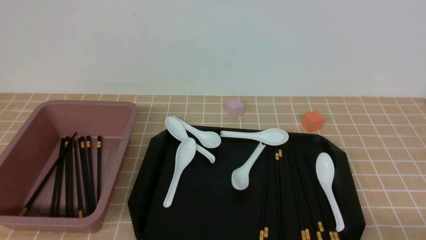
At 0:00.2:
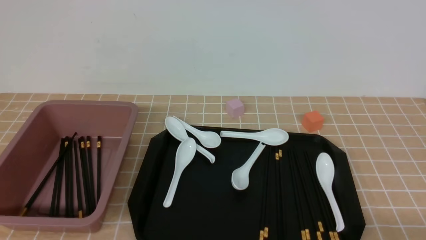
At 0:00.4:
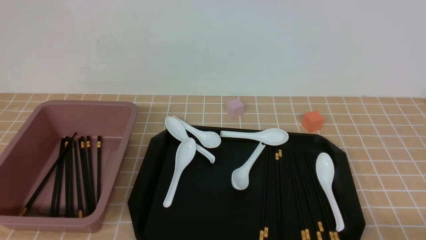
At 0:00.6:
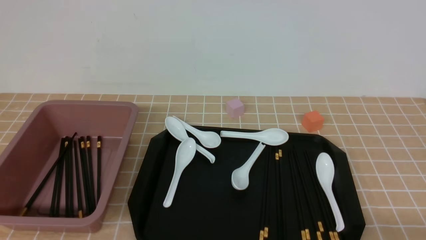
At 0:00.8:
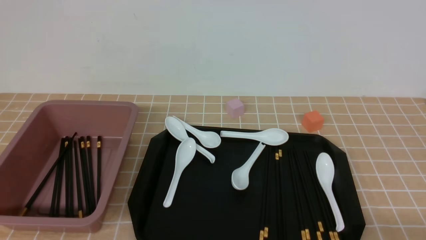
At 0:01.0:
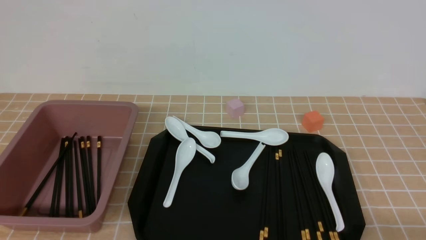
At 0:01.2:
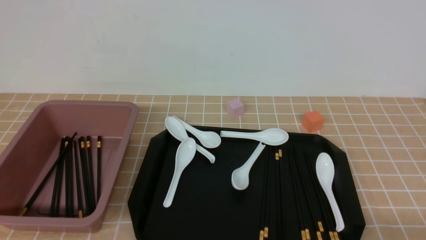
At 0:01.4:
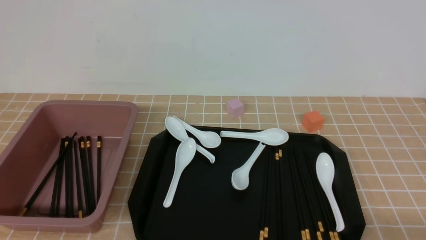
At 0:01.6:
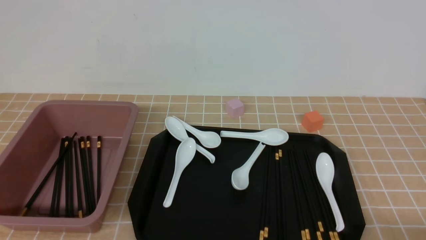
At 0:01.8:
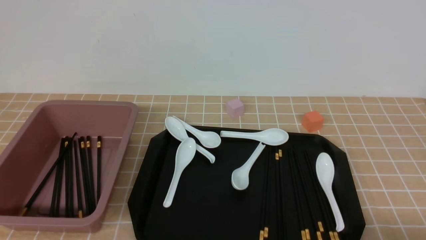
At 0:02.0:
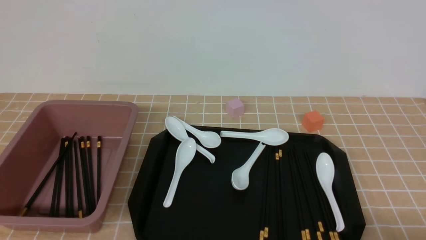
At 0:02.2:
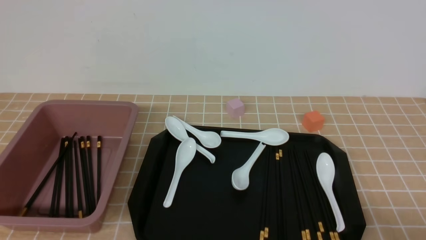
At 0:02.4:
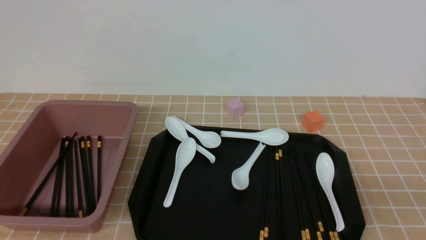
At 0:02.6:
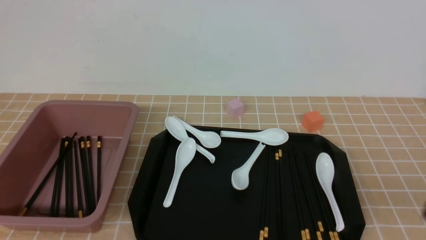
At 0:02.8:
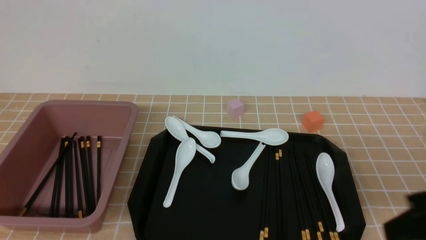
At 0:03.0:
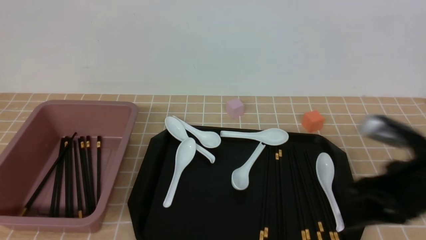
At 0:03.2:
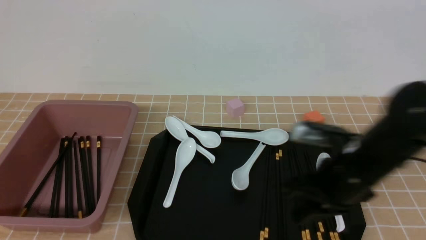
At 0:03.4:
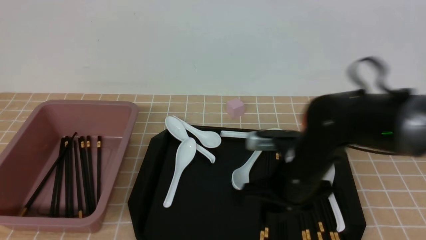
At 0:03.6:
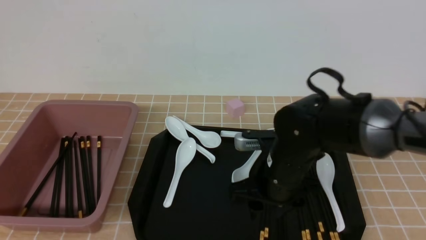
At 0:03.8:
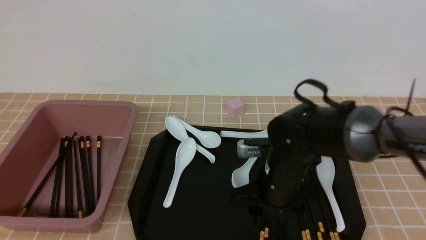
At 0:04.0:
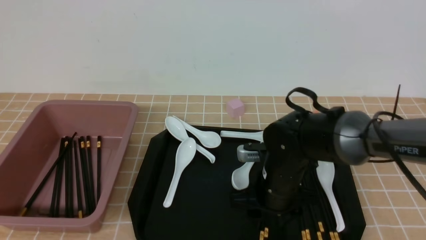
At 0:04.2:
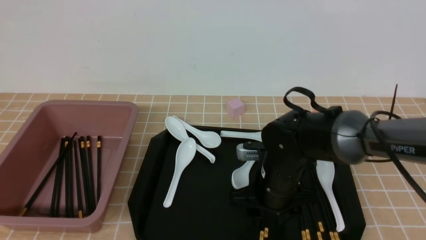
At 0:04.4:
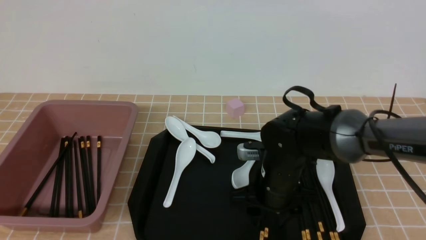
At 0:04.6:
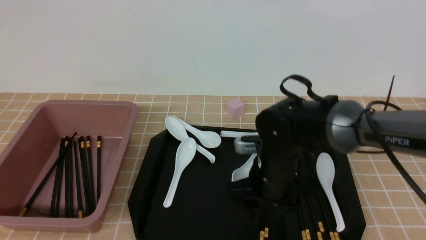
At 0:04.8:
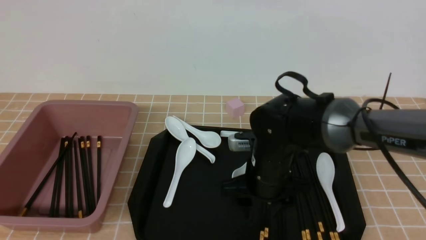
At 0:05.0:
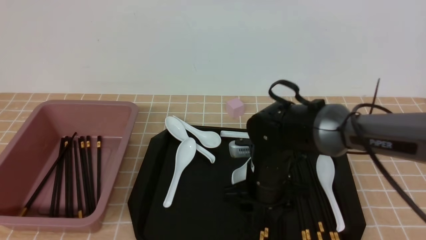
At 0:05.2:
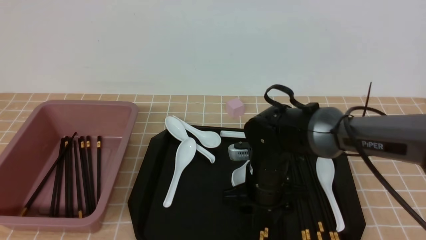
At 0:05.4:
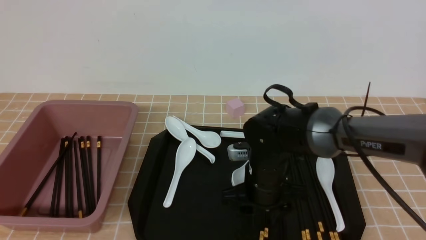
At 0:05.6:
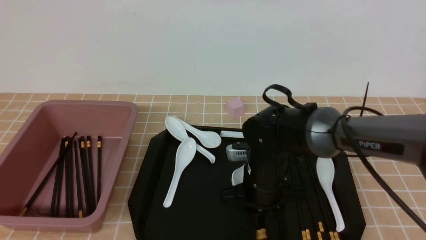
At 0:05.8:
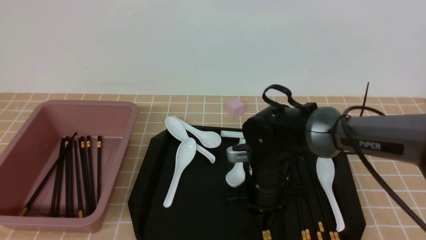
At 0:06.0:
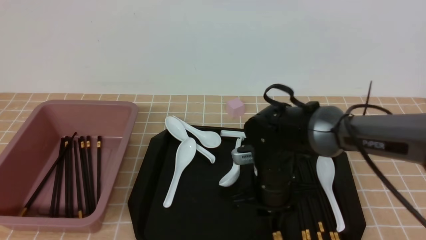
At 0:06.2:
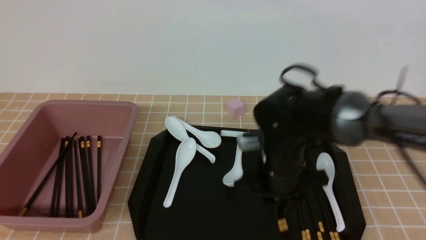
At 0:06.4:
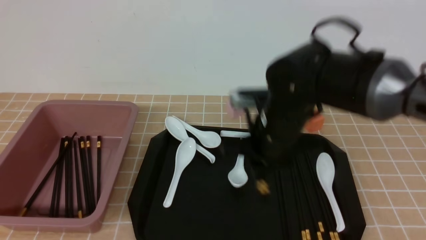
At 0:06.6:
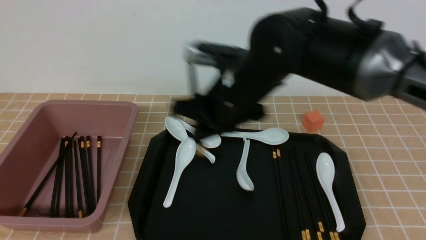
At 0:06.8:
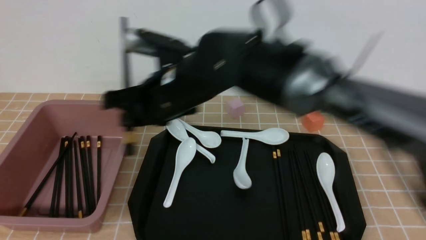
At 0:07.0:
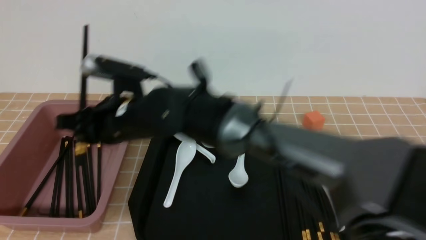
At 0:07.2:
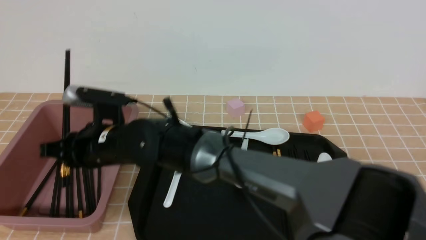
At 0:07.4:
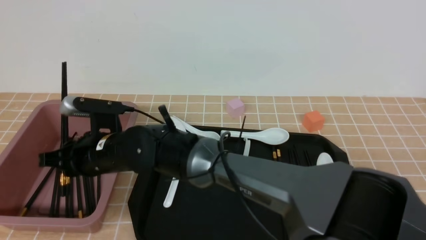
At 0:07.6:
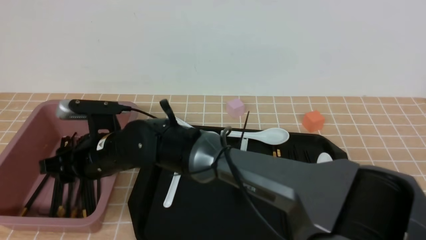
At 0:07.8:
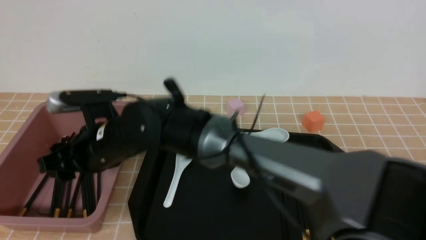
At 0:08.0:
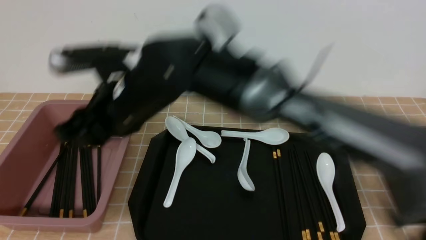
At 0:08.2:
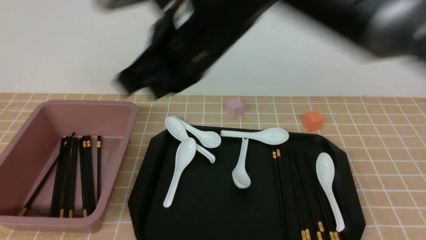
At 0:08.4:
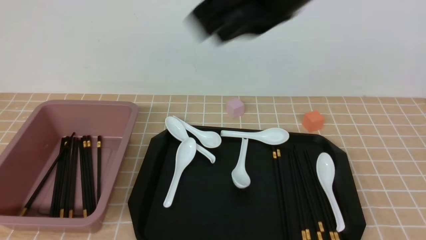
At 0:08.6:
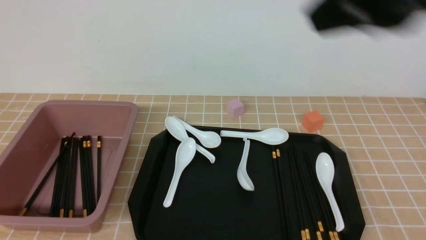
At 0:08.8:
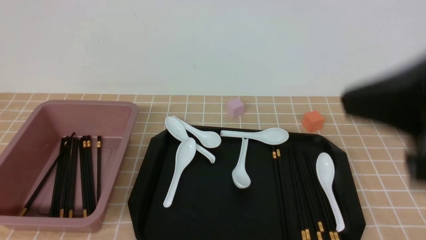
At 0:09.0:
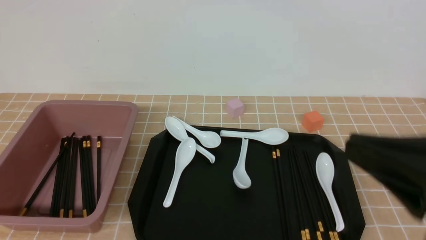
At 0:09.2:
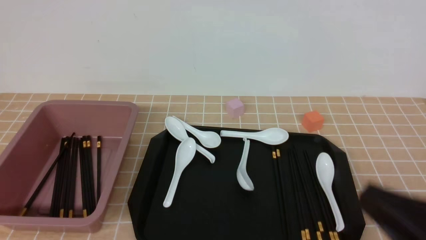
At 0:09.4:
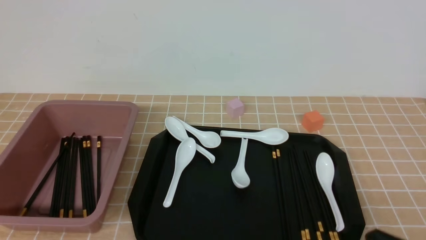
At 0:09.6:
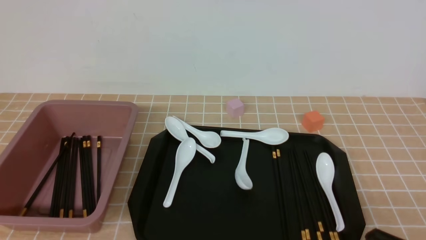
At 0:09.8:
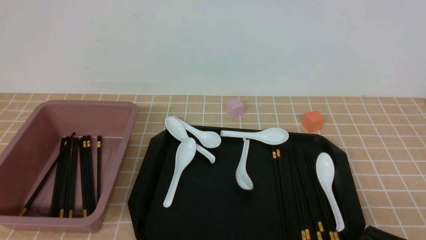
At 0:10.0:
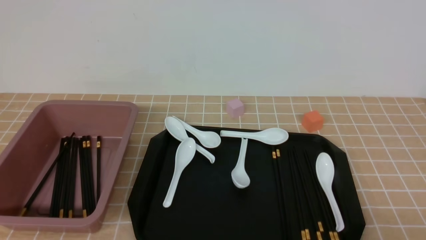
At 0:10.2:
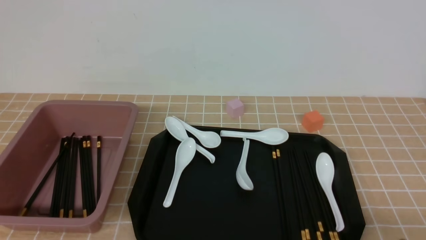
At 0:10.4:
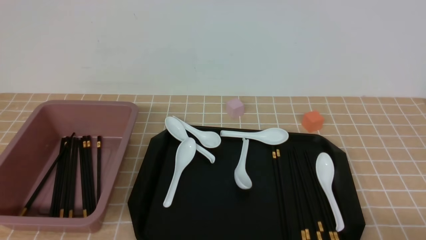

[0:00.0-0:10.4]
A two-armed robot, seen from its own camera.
Step, 0:00.0 to 0:06.0: use the right arm to grab a pair of chopsticks.
Step, 0:06.2 to 0:08.0: use the right arm to put the chopsticks into the lunch box.
0:01.4 to 0:03.0: The right gripper goes about 20 cm forward, upward and to the left, and closes its fingers.
0:03.0 to 0:04.4: The right gripper is displaced to the left, downward and forward by about 20 cm, and opens.
0:04.4 to 0:06.0: The right gripper closes.
0:06.0 to 0:07.4: The right gripper shifts about 25 cm to the left.
0:07.4 to 0:09.0: The right gripper goes some 50 cm to the right, backward and upward, and closes up.
0:09.0 to 0:10.4: The right gripper is displaced downward and to the right by approximately 20 cm.

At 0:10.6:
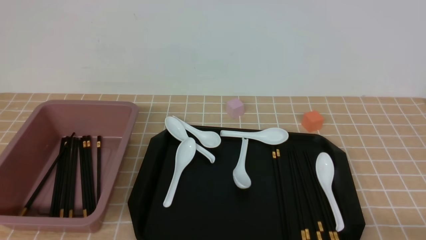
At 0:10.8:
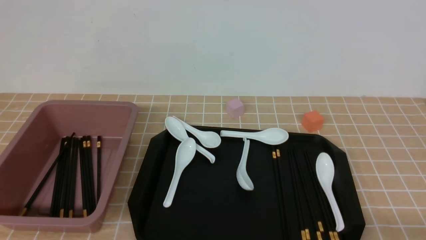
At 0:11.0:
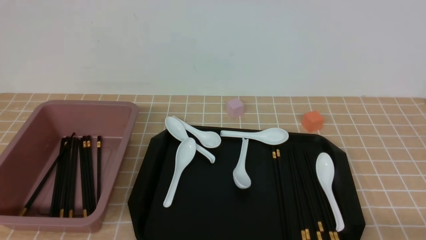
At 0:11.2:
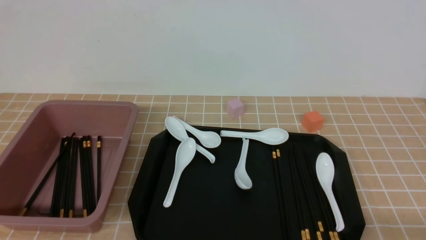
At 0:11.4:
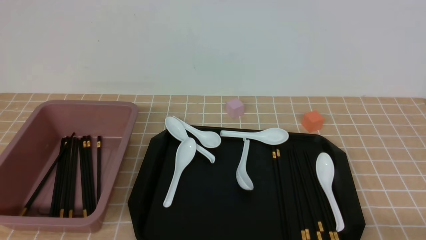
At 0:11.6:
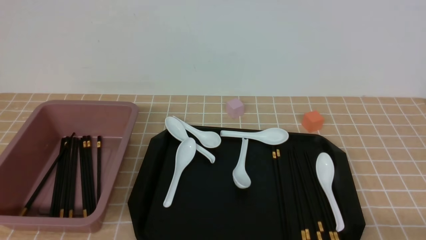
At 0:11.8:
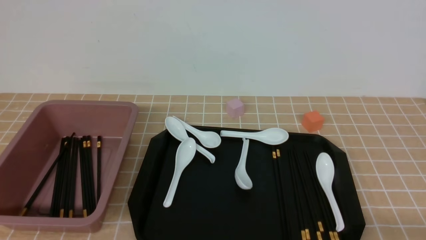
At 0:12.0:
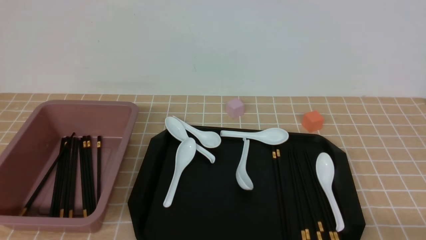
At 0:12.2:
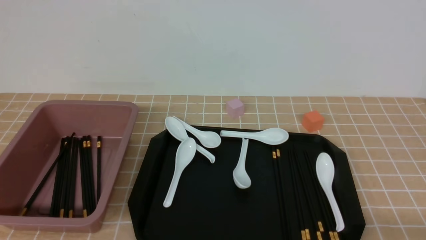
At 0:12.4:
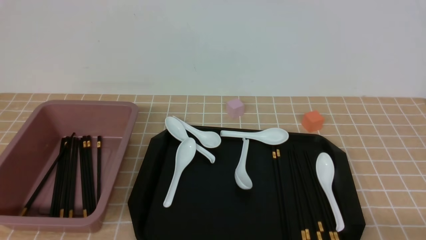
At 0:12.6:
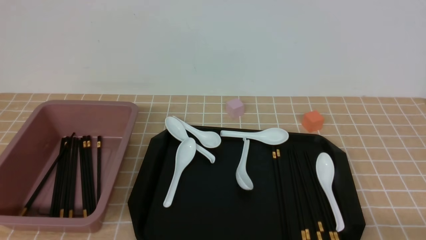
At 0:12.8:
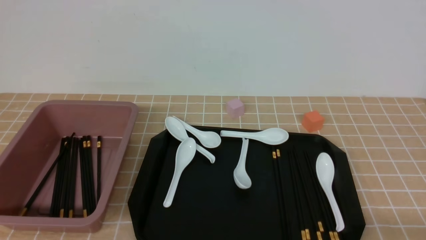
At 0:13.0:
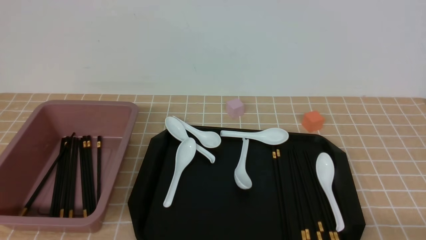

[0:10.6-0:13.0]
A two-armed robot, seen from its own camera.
0:11.8 to 0:13.0: Both grippers stay put.
